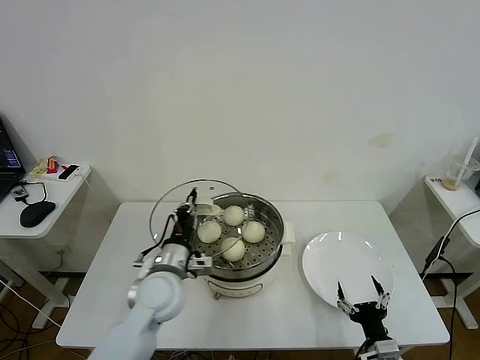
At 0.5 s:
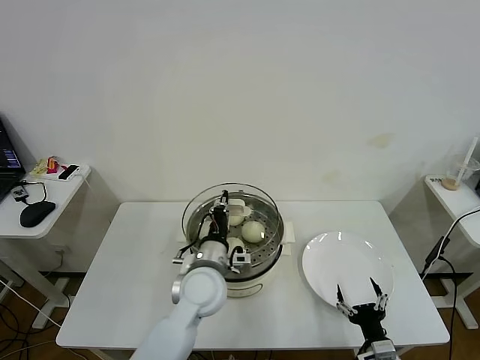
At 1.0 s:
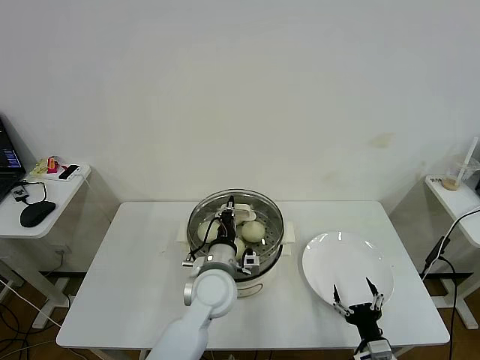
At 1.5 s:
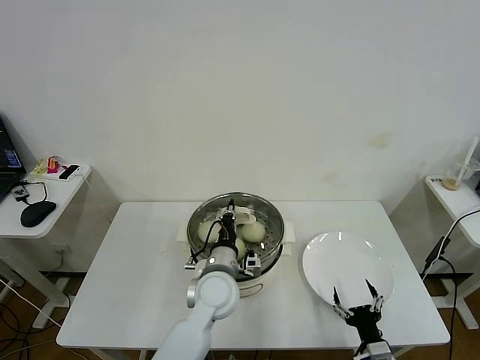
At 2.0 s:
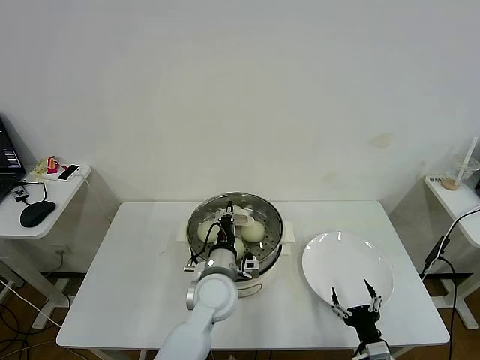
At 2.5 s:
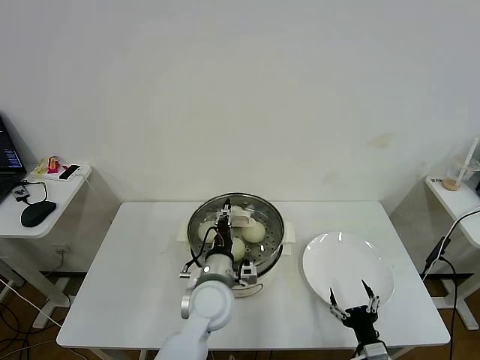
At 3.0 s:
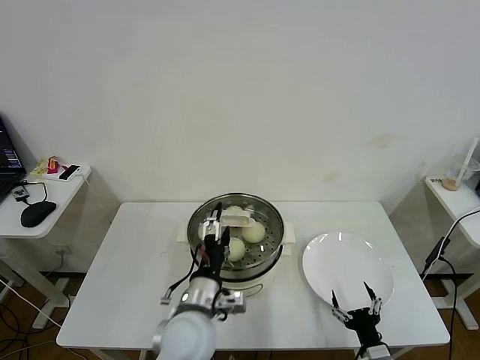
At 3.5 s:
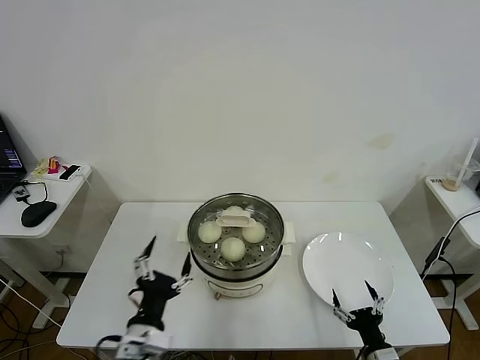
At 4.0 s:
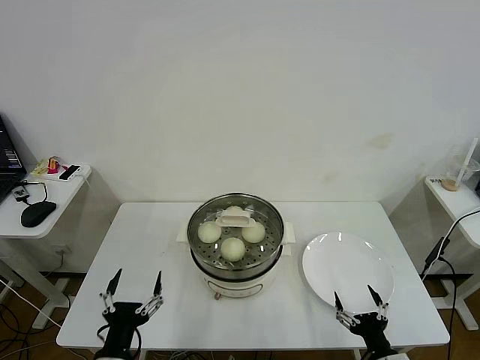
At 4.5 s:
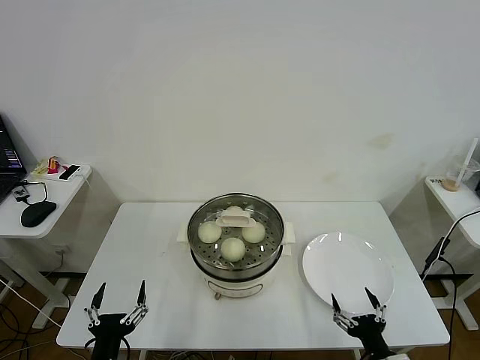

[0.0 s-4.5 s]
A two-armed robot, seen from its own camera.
Task of the whole recording: take steamed baozi put them in steamer then cover it.
Step, 0.0 to 3.0 s: Place the pot lid on the steamer with left gripper.
0.0 to 2.0 s: The left gripper moves to the right, about 10 cm.
2.0 to 4.5 s: The right gripper moves about 5 cm; the left gripper is displaced backward and to the left by approximately 30 cm, and opens.

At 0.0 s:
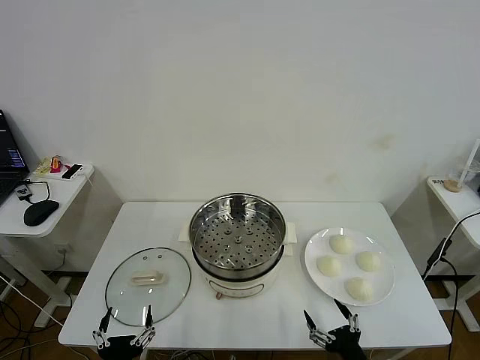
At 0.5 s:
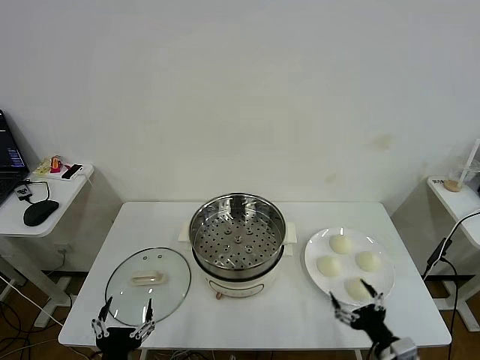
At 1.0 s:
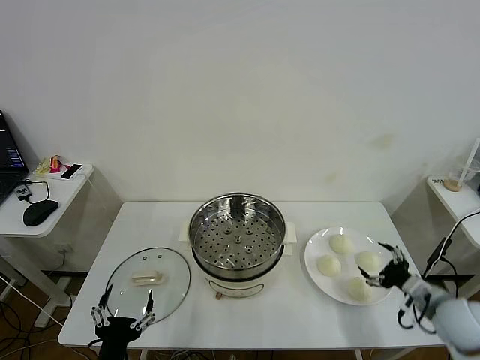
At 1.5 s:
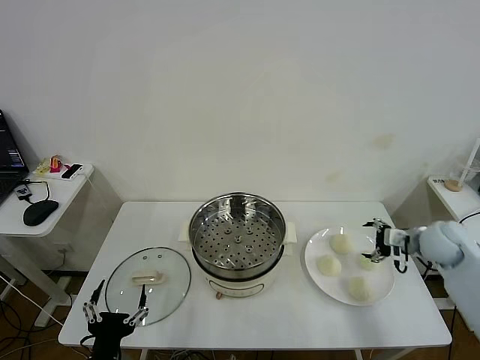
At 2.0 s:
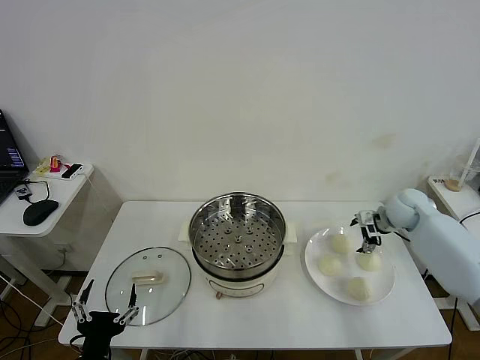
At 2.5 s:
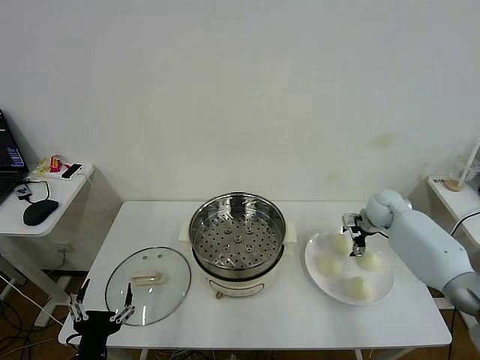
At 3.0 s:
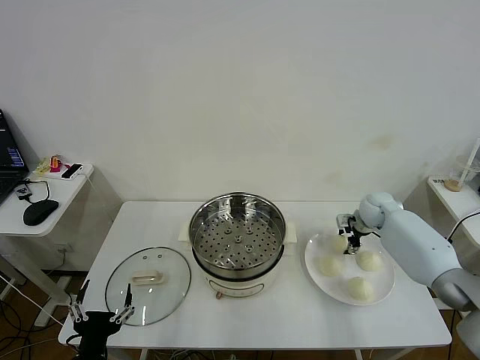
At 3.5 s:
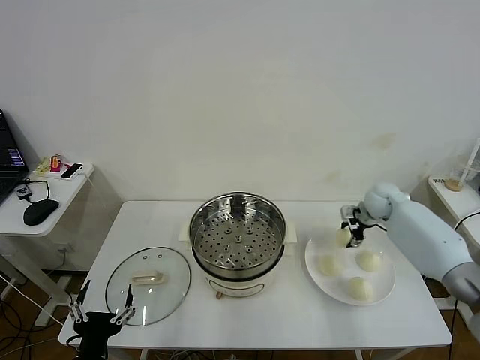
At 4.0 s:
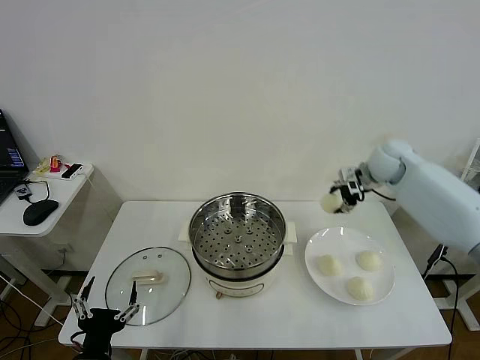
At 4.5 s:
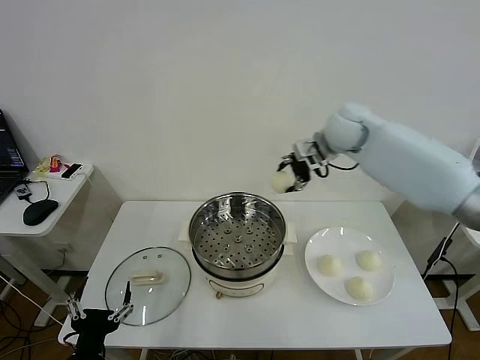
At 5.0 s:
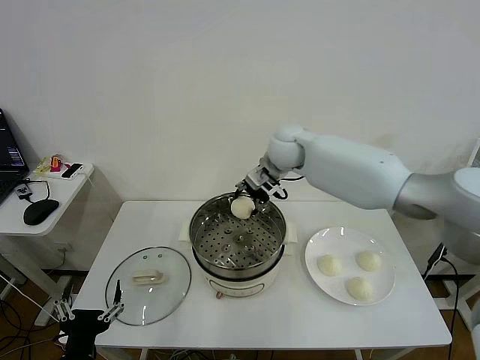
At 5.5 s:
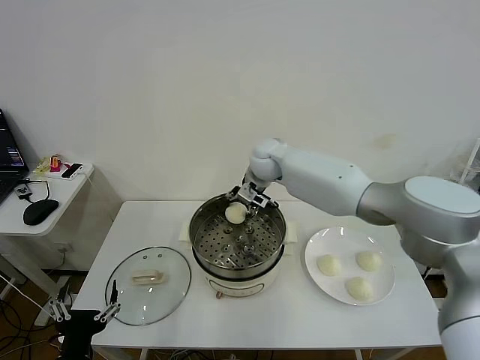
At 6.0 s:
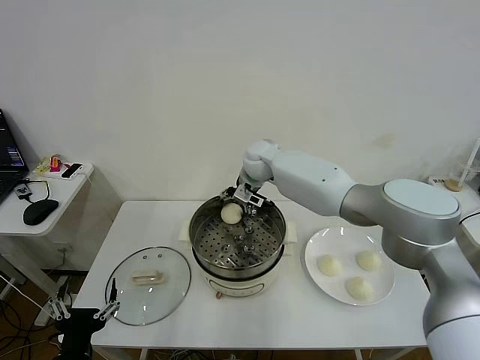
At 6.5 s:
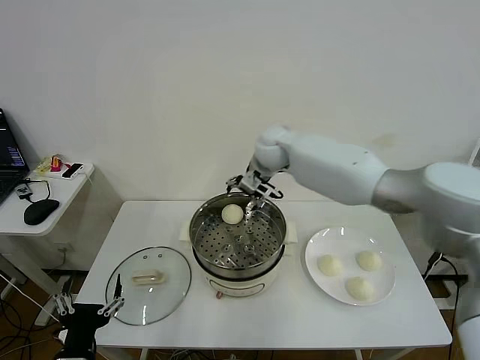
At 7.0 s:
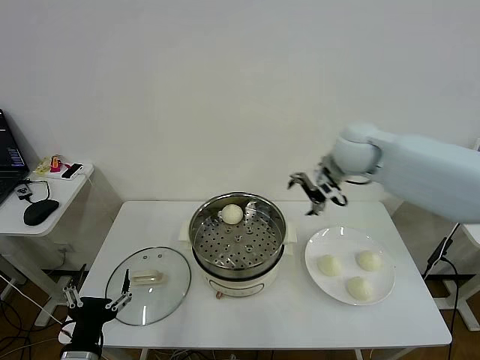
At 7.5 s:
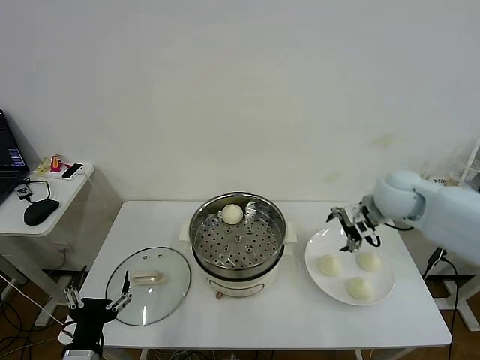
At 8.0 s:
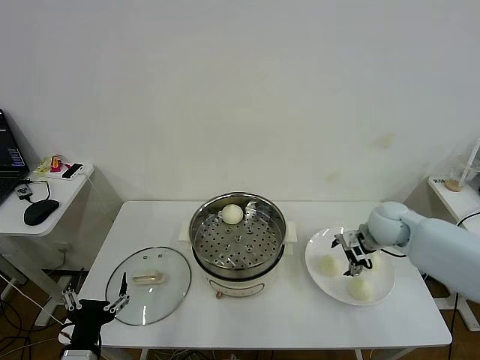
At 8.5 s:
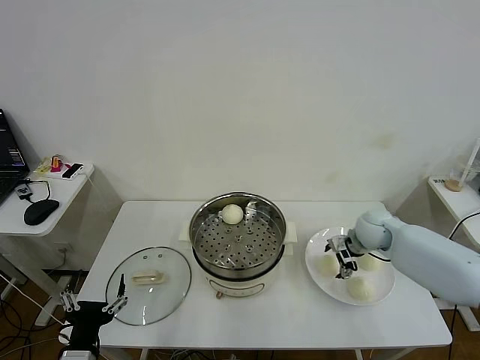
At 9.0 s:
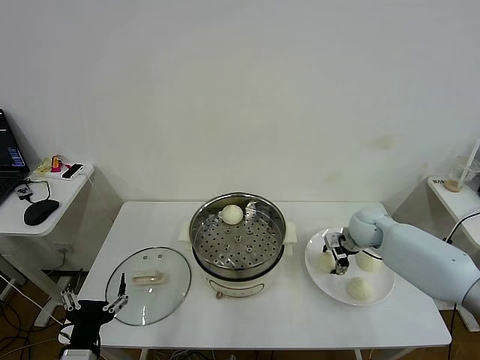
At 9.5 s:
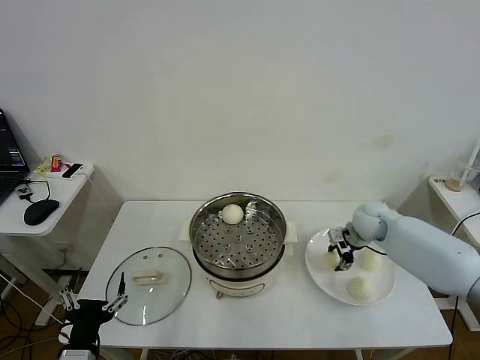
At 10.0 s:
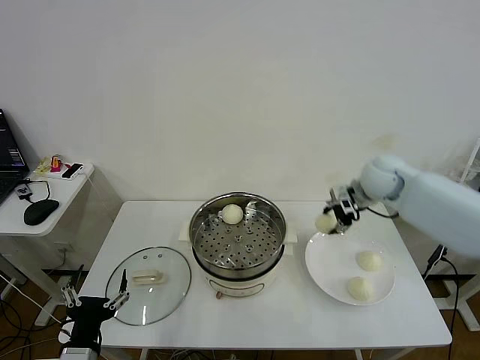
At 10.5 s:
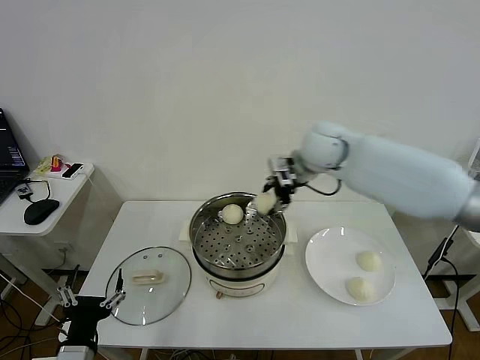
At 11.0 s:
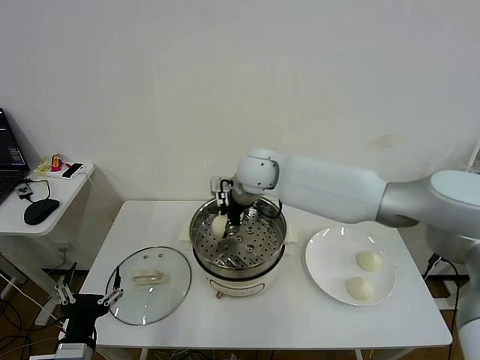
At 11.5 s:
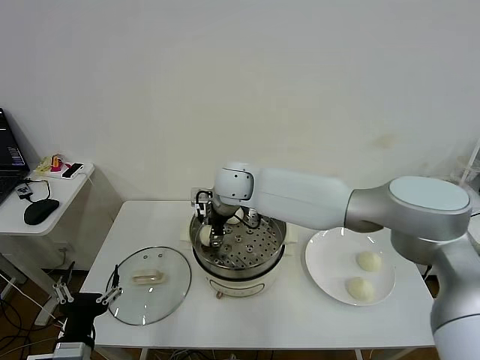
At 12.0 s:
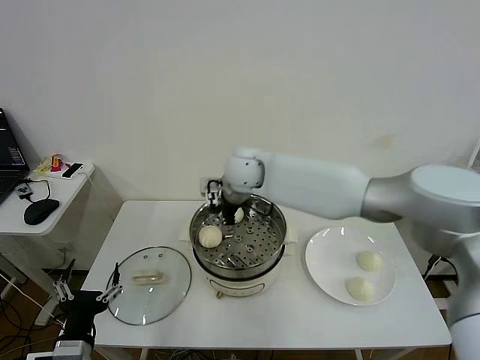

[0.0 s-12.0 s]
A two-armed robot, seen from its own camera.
Task of the whole recording: take steamed baozi put them in steamer then cover it.
Step, 0.0 to 3.0 s: Grasp the baozi in the plate with right gripper.
Step, 3.5 to 6.0 s: Place the baozi on the steamer with right gripper.
Step, 6.5 to 9.0 s: Grasp the baozi in the plate with right gripper.
Step, 9.5 to 11.5 s: Place the baozi on the steamer with right gripper.
2.0 to 4.0 s: The right gripper goes about 20 cm upward and to the left, and closes up.
4.0 to 6.0 s: The right gripper moves to the left, approximately 25 cm, and opens up.
6.0 to 8.0 s: The right gripper travels to the right and backward by approximately 35 cm.
8.0 to 10.0 s: The right gripper moves upward and forward, about 15 cm, and closes its fingers.
10.0 to 12.0 s: The right gripper is displaced to the left by roughly 25 cm, and opens up.

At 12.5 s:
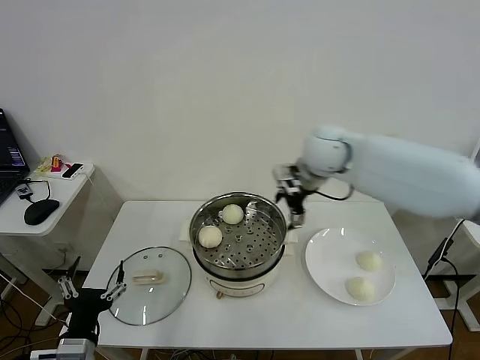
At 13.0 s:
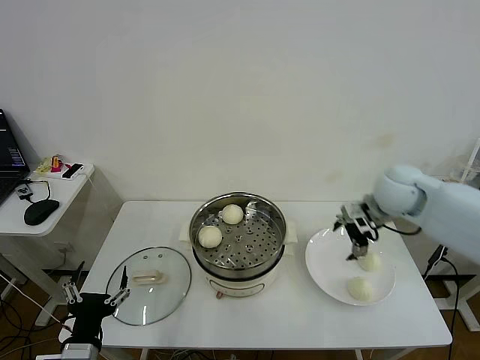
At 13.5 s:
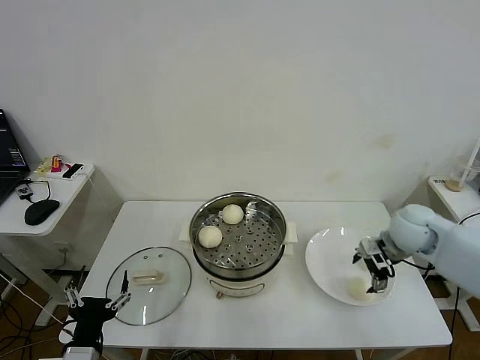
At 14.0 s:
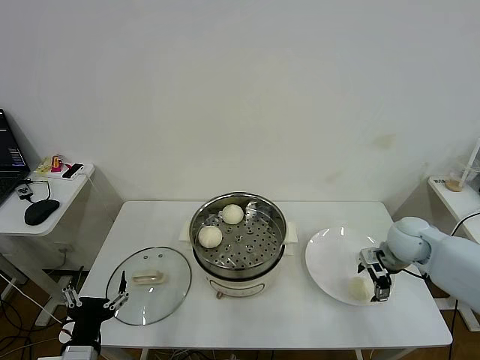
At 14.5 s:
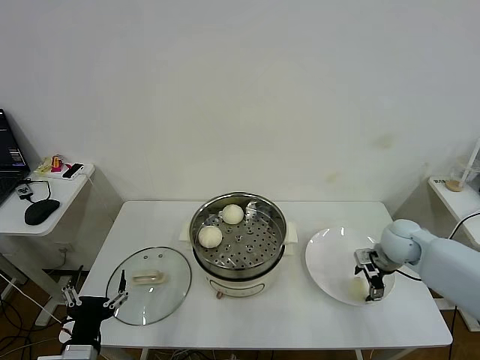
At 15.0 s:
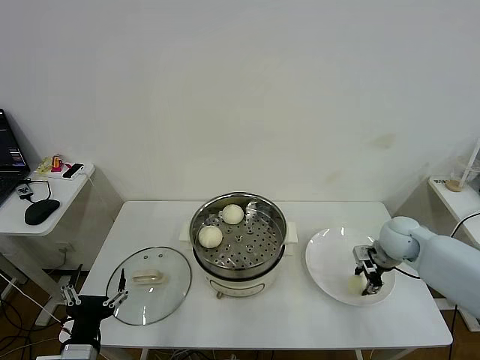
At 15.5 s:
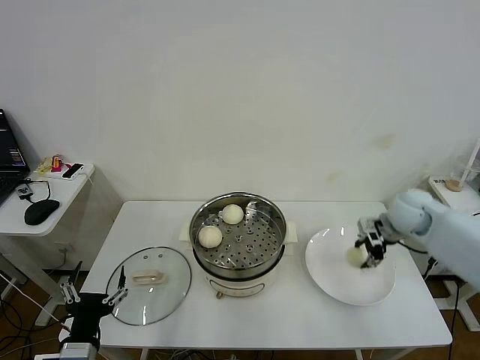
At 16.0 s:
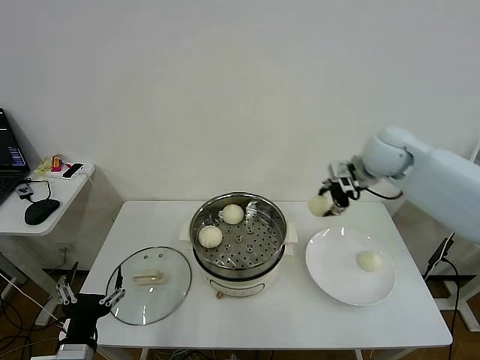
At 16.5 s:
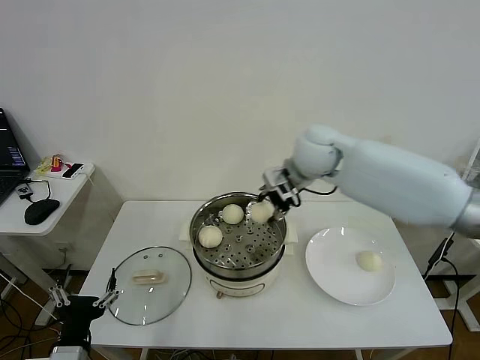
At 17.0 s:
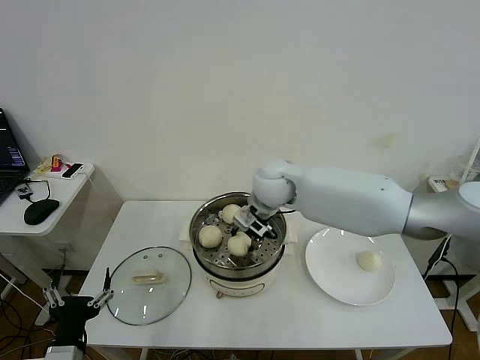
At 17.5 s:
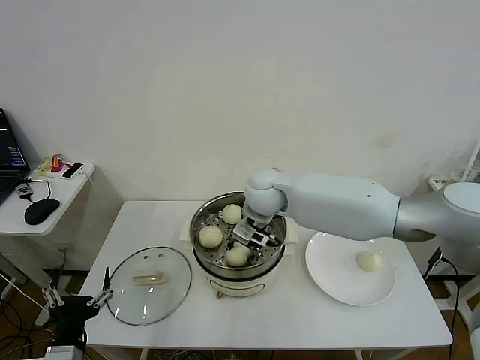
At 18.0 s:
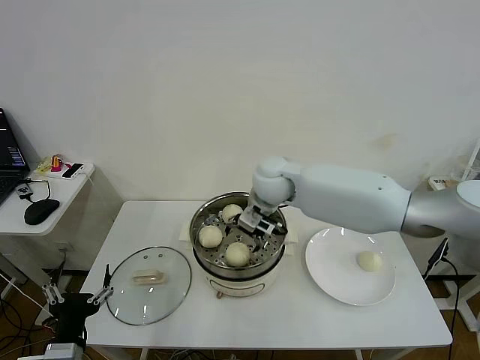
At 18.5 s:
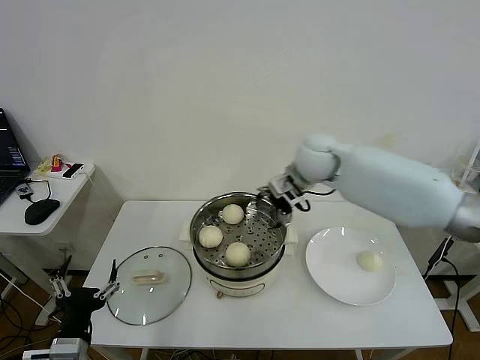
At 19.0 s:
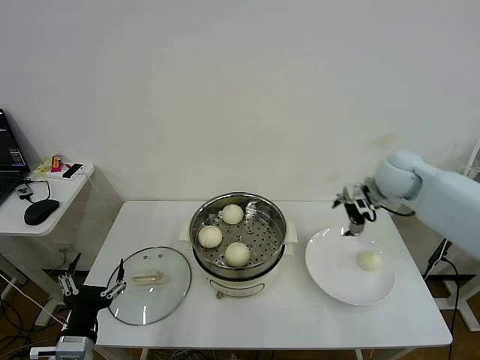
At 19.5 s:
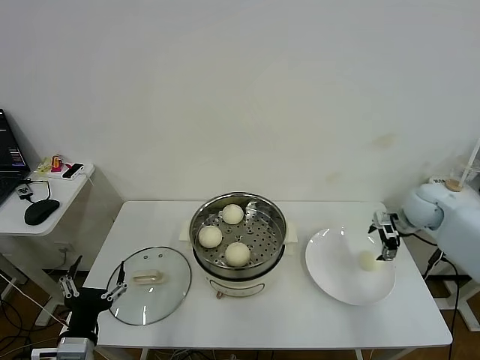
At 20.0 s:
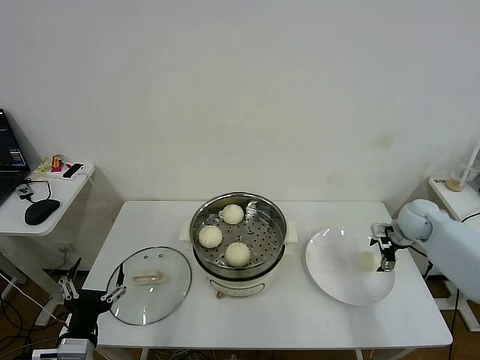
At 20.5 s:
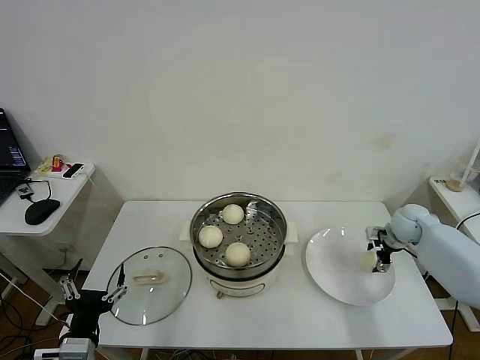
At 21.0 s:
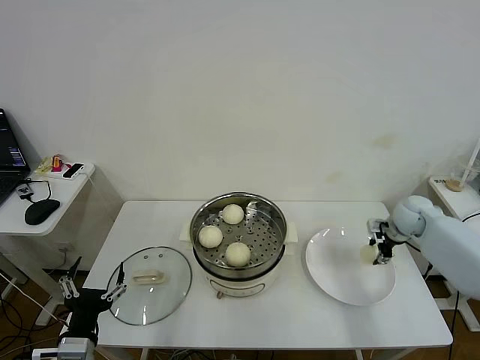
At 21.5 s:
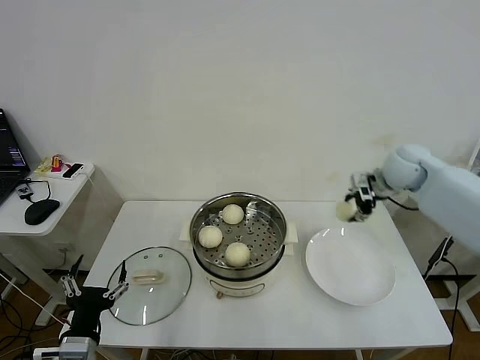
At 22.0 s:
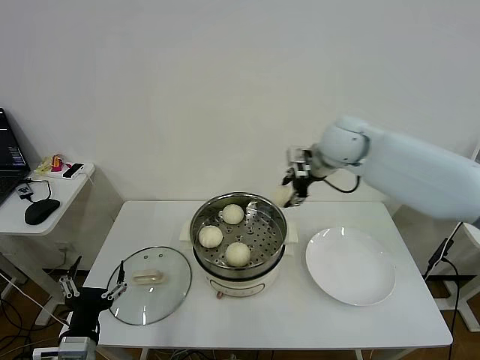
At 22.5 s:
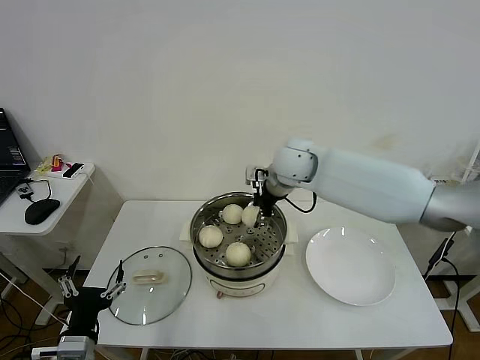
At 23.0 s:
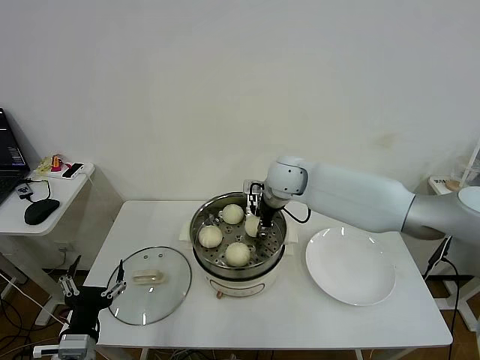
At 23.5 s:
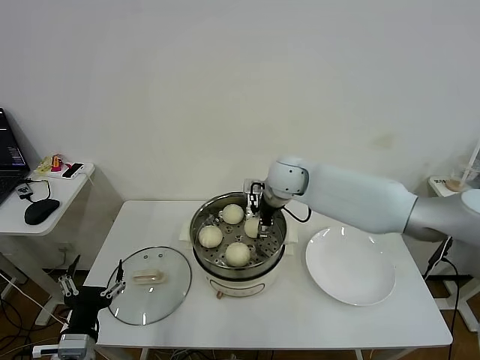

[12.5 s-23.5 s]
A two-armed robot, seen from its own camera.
Task of the whole recording: take steamed baozi put them in steamer then cover it.
Step, 12.5 to 14.5 s: Grasp the baozi in the plate with right gripper.
Step, 15.5 to 17.5 s: Place the baozi on the steamer with right gripper.
Step, 18.5 to 20.5 s: Grasp the baozi in the plate with right gripper.
12.5 to 14.5 s: The right gripper is displaced downward and to the right by about 25 cm.
14.5 to 16.0 s: The right gripper goes about 25 cm upward and to the left, and closes.
16.0 to 18.0 s: The right gripper is displaced to the left by about 20 cm, and opens up.
18.0 to 20.0 s: The right gripper travels to the right by roughly 35 cm.
20.0 to 21.5 s: The right gripper goes roughly 20 cm upward and to the left, and closes its fingers.
21.5 to 23.5 s: The right gripper shifts roughly 25 cm to the left, and opens.
